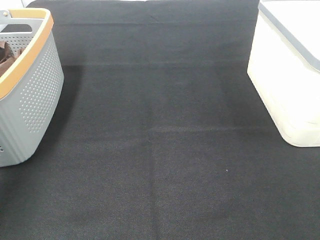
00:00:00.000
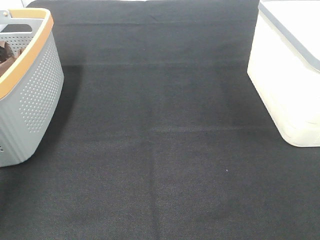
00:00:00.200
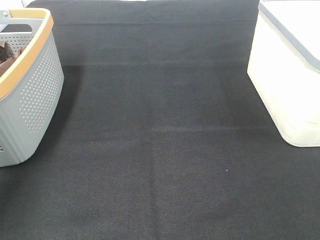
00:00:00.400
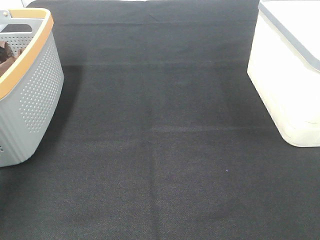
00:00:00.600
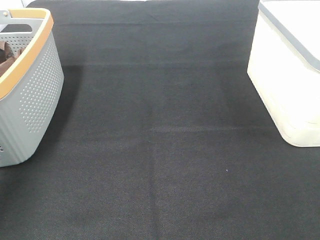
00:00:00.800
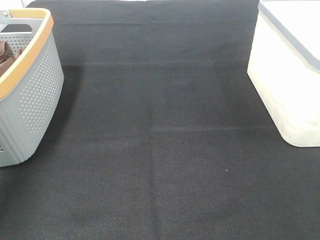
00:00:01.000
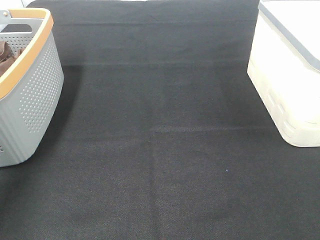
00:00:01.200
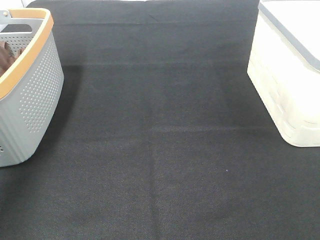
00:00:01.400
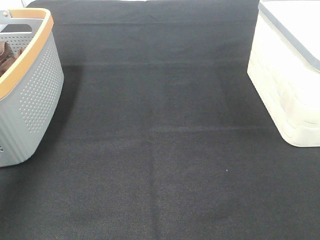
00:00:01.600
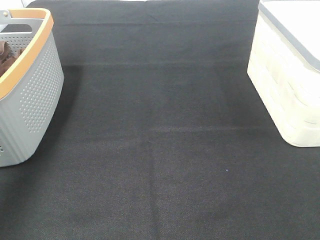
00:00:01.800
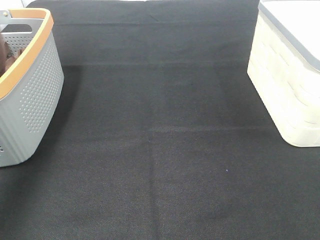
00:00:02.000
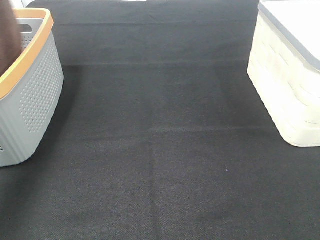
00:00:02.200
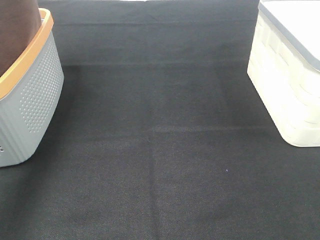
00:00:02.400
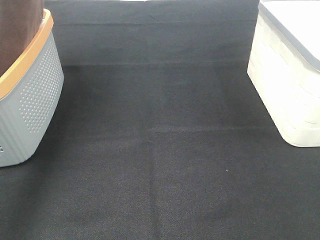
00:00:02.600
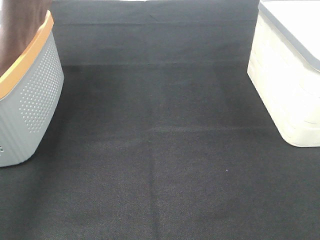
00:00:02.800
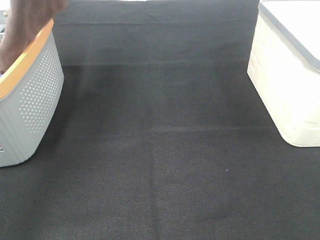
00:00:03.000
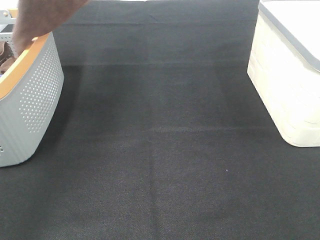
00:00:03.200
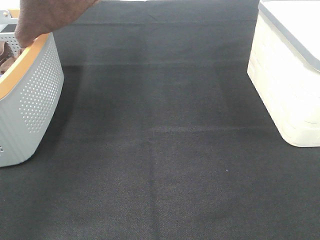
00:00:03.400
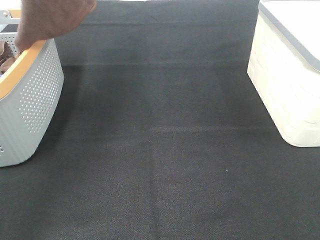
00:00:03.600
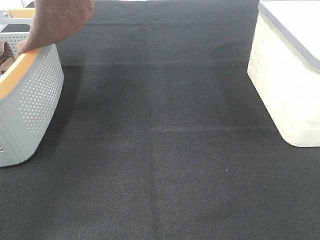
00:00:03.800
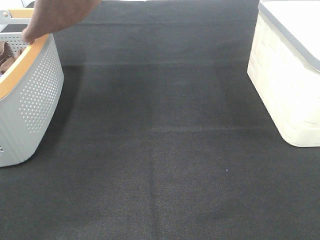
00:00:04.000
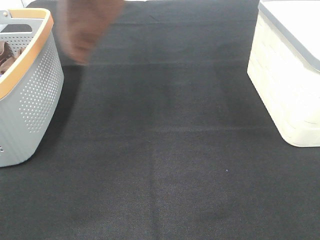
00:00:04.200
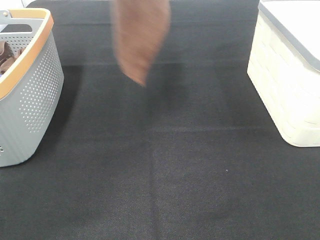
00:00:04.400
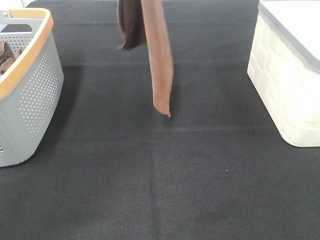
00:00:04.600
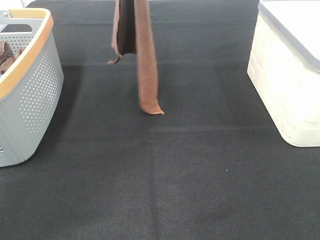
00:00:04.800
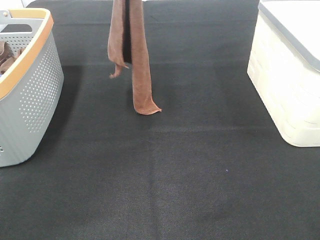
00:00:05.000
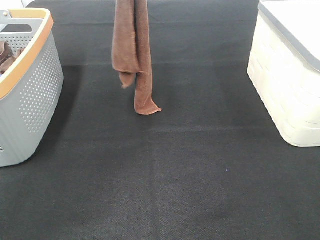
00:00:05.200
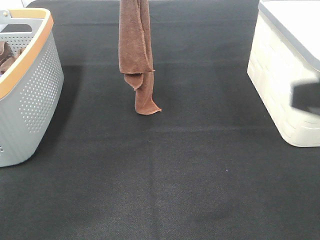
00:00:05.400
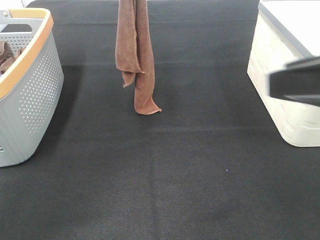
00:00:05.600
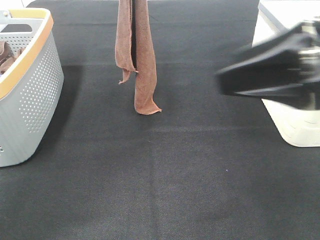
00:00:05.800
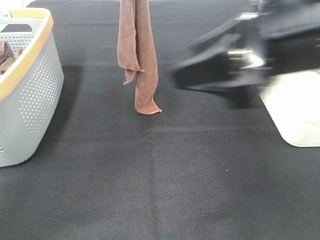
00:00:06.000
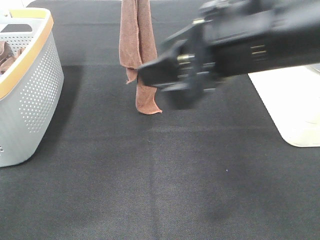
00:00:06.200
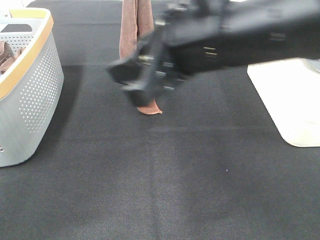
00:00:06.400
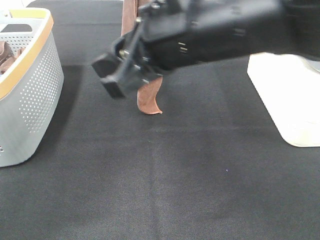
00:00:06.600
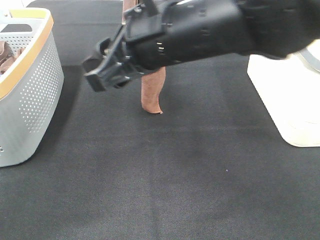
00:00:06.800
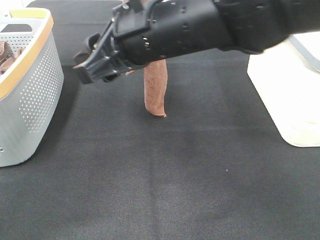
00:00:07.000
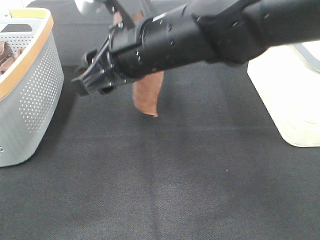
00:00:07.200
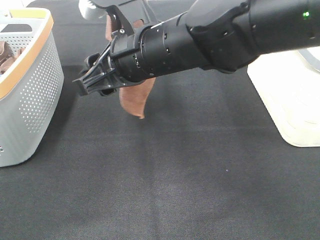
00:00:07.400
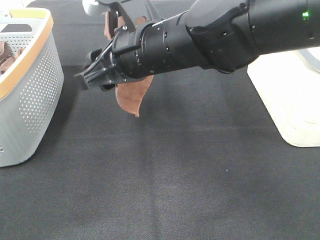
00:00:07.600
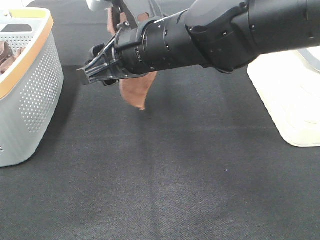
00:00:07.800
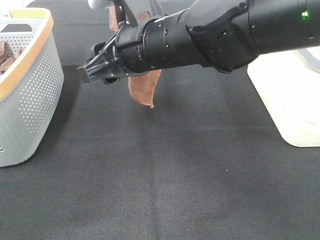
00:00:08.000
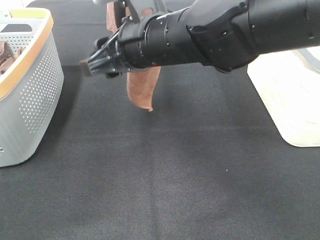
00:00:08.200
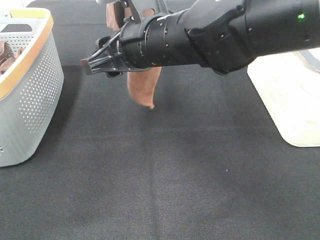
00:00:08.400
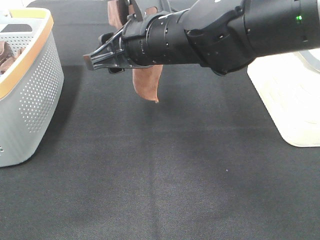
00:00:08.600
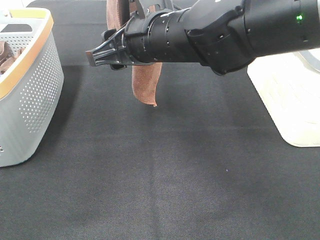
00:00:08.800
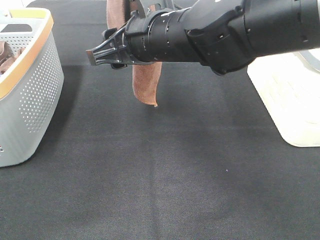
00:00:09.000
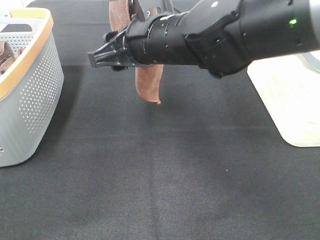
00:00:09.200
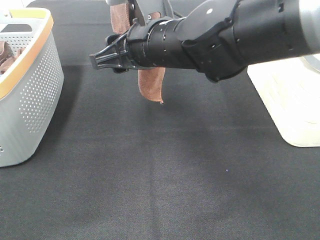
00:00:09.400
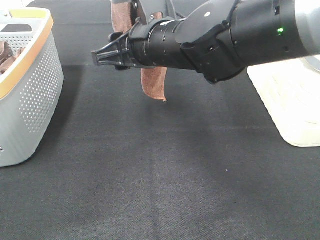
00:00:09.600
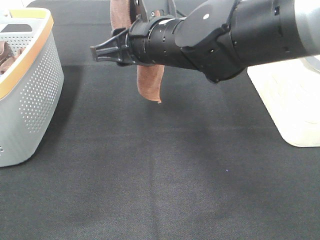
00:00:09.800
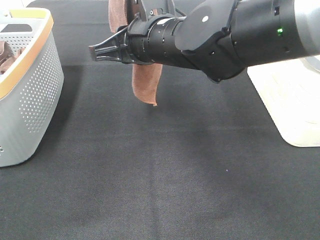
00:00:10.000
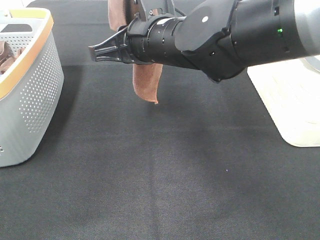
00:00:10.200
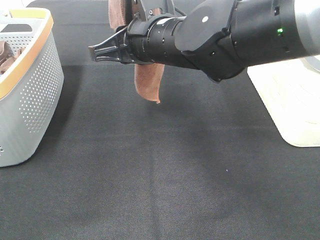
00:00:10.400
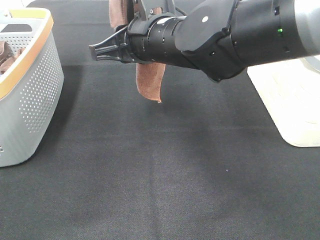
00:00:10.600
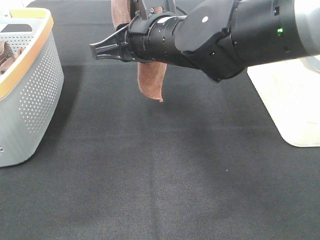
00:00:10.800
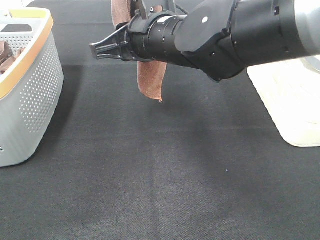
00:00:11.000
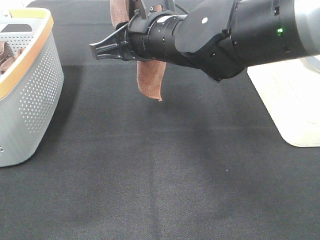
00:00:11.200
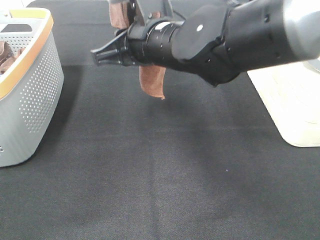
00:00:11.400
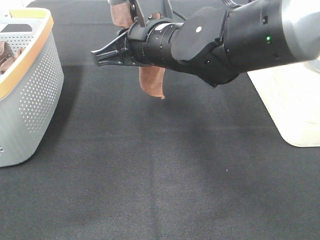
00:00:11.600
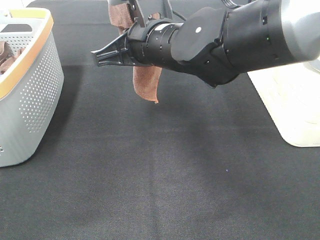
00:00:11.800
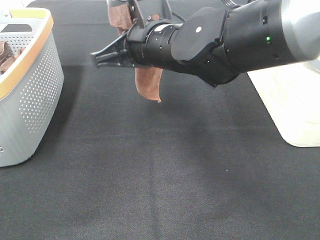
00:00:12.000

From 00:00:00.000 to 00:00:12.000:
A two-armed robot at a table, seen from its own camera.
Task of the whole recording: Remove the towel and place it.
Step, from 00:00:02.200 to 00:00:09.600: Right hand: grab a corner of the brown towel and straighten it.
From 00:00:01.600 to 00:00:03.000: The left gripper is displaced to the right and upward by roughly 15 cm.
From 00:00:03.000 to 00:00:04.400: The left gripper goes about 10 cm to the right.
From 00:00:04.400 to 00:00:06.000: The left gripper moves downward, roughly 5 cm. The right gripper travels forward and to the left by roughly 25 cm.
From 00:00:06.000 to 00:00:07.600: The left gripper is displaced upward by about 5 cm. The right gripper moves to the left, forward and downward, approximately 15 cm.
From 00:00:07.600 to 00:00:09.000: The grippers move only a little.
From 00:00:09.000 to 00:00:10.400: The grippers move only a little.
From 00:00:10.400 to 00:00:12.000: The right gripper closes.

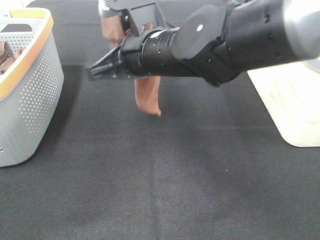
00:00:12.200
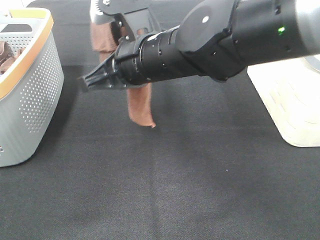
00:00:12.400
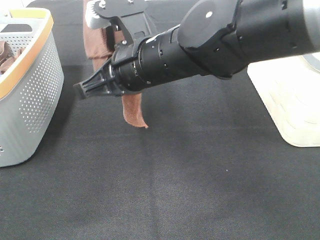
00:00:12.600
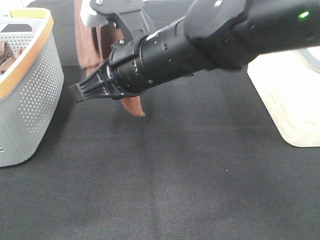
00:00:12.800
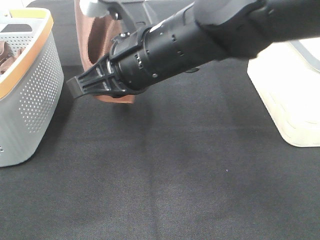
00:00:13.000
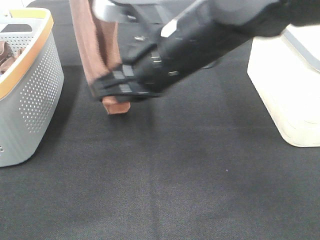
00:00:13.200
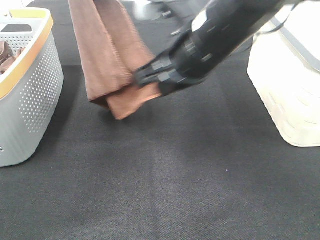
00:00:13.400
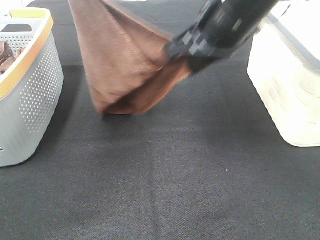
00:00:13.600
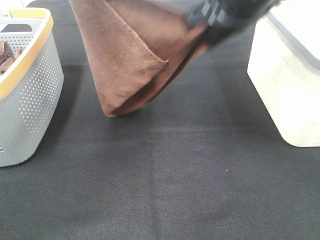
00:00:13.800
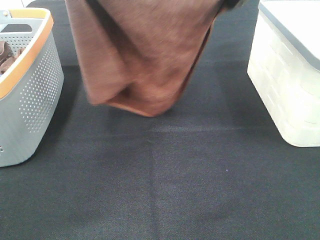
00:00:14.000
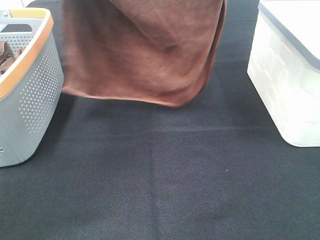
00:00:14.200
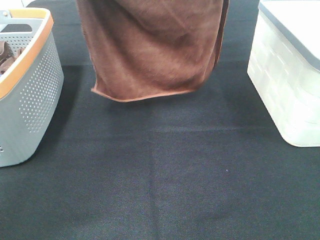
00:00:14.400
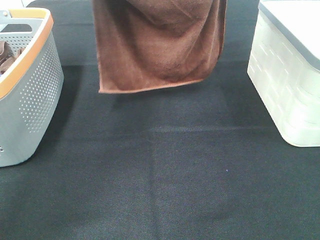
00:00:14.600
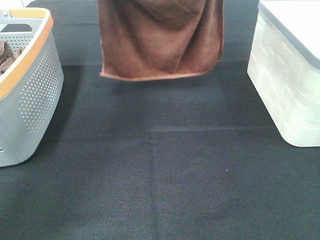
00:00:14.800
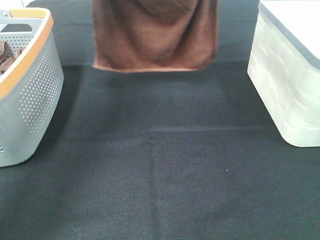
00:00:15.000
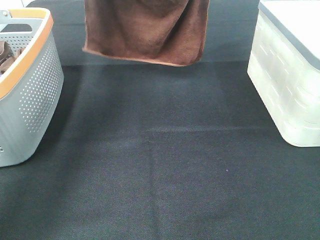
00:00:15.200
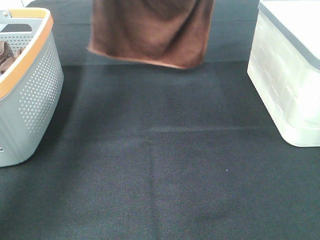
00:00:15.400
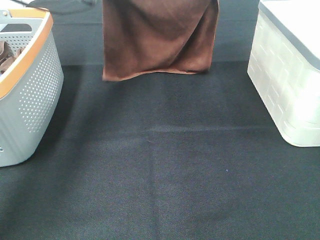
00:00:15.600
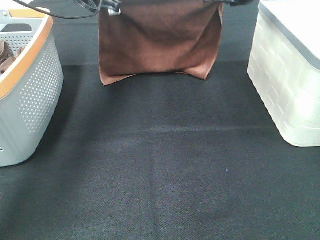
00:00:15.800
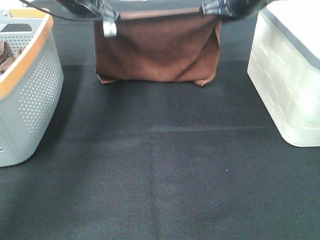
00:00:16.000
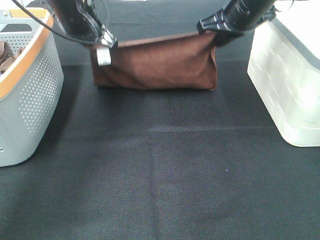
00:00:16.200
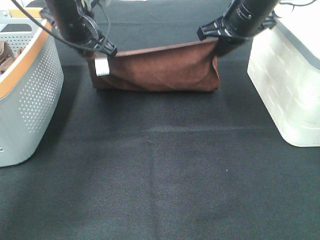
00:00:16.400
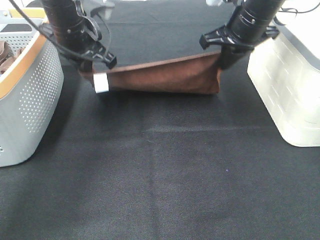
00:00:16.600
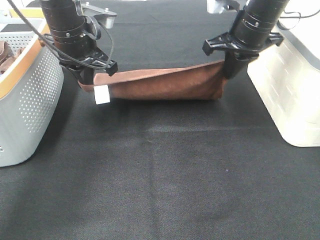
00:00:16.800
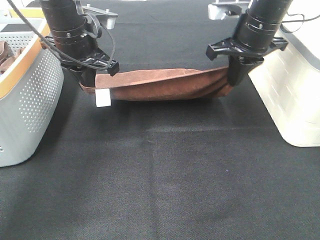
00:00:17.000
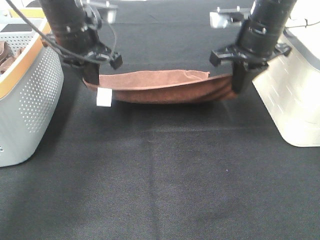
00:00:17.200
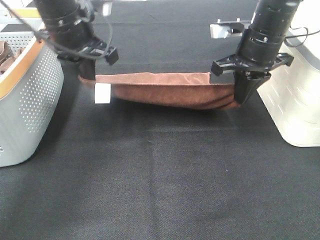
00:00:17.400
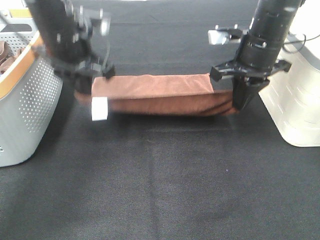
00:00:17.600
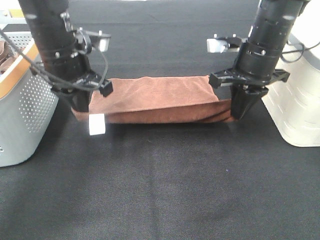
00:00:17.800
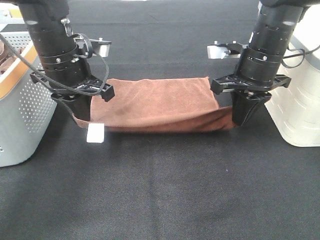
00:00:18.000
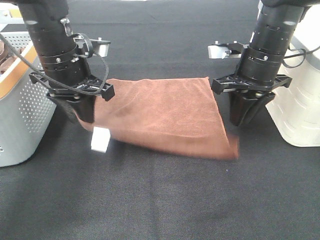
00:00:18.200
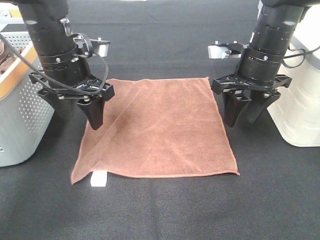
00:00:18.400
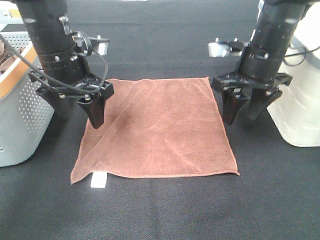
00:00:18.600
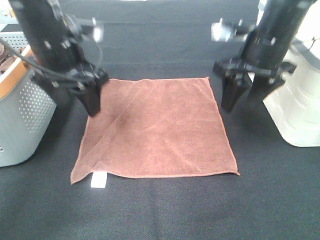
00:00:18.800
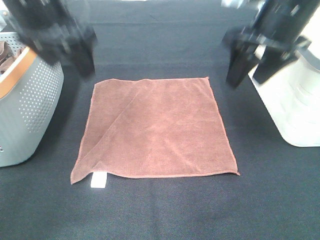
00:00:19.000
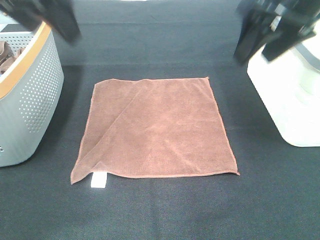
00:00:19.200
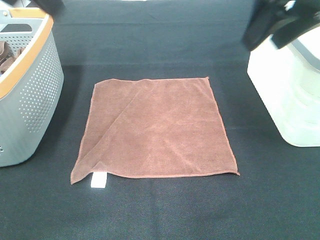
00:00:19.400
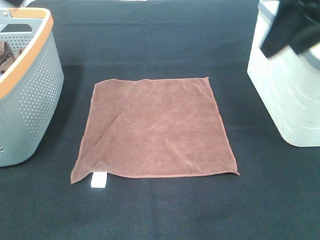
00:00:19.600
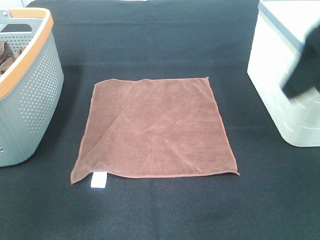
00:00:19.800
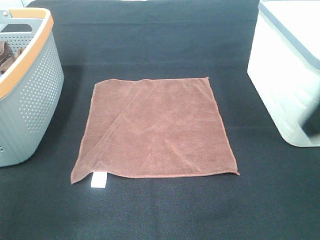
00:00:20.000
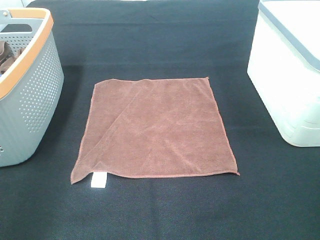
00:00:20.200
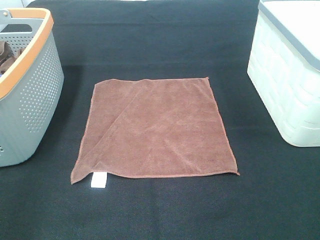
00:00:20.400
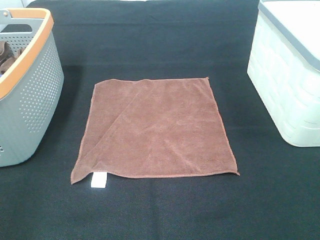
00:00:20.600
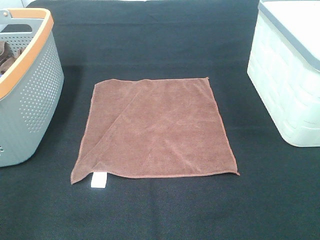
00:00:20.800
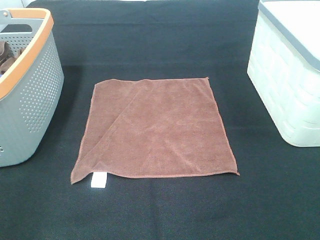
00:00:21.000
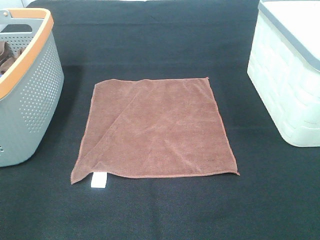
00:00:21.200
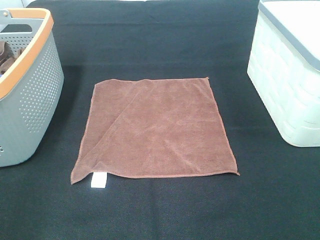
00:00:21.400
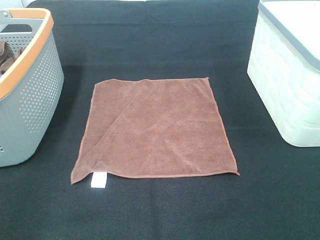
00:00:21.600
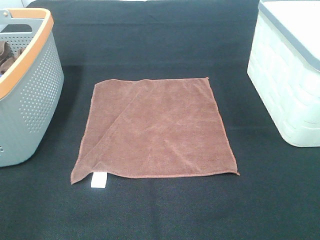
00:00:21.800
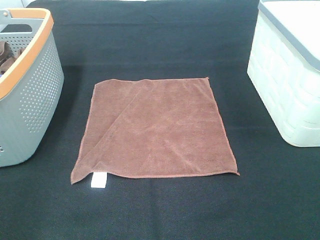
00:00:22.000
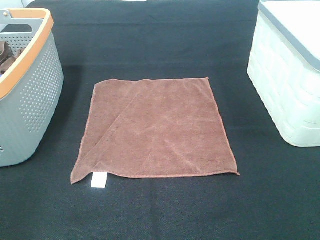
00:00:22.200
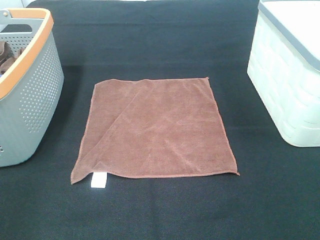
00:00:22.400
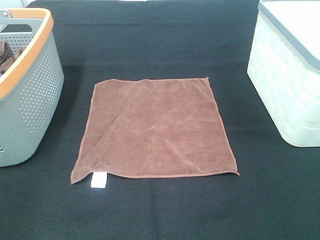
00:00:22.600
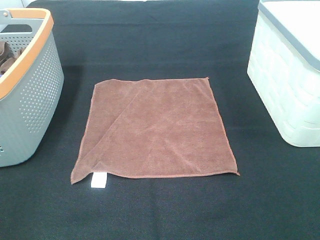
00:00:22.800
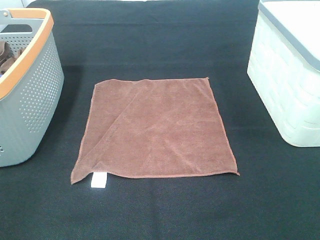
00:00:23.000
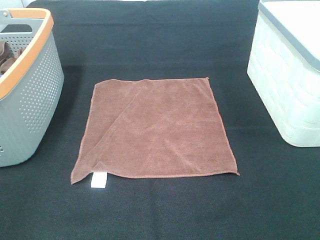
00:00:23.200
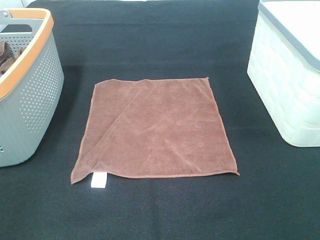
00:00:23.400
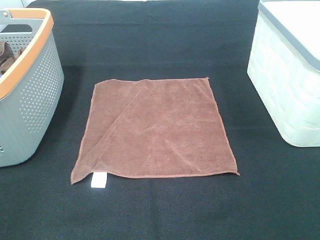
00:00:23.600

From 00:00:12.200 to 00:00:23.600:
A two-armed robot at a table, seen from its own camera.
Task of the whole recording: Remove the towel and place it.
From 00:00:12.200 to 00:00:13.600: The right gripper goes approximately 10 cm to the right and upward. Meanwhile the left gripper shifts some 5 cm downward.
From 00:00:13.600 to 00:00:15.000: The left gripper moves forward and downward, about 15 cm. The right gripper moves forward and upward, some 15 cm.
From 00:00:15.000 to 00:00:16.400: The grippers both shift downward by some 10 cm.
From 00:00:16.400 to 00:00:17.800: Both grippers move backward, approximately 5 cm.
From 00:00:17.800 to 00:00:19.400: Both grippers travel together upward and backward, about 20 cm. The right gripper opens its fingers; the left gripper opens its fingers.
From 00:00:19.400 to 00:00:20.800: The right gripper travels backward by about 25 cm. The left gripper shifts approximately 30 cm backward, to the left and downward.
